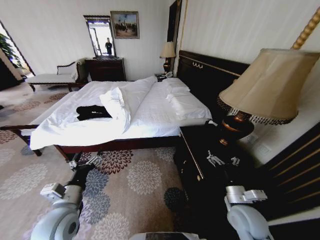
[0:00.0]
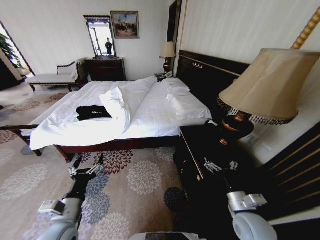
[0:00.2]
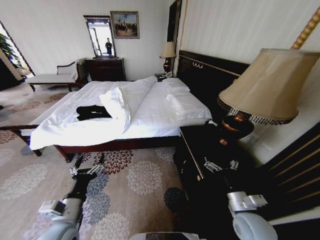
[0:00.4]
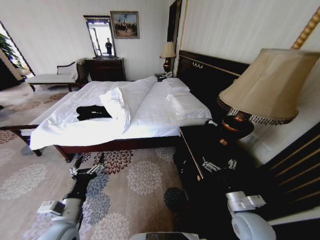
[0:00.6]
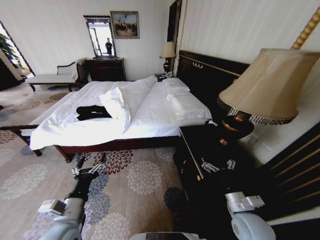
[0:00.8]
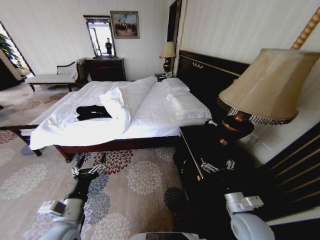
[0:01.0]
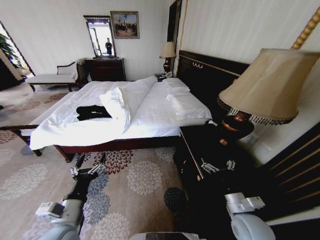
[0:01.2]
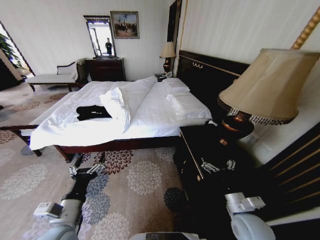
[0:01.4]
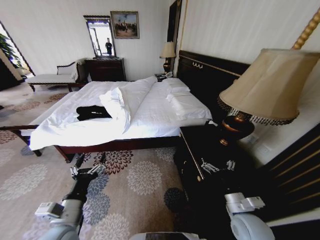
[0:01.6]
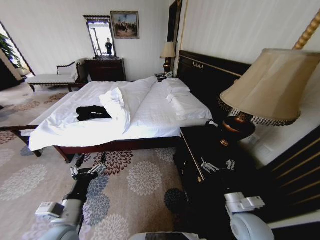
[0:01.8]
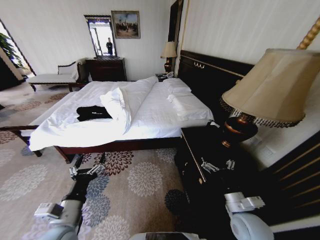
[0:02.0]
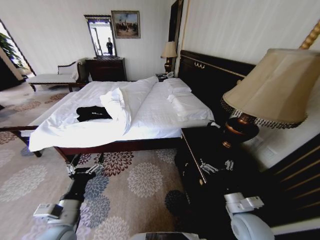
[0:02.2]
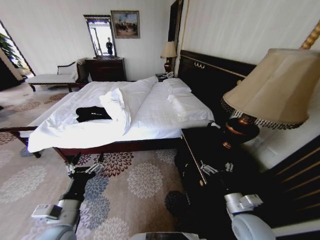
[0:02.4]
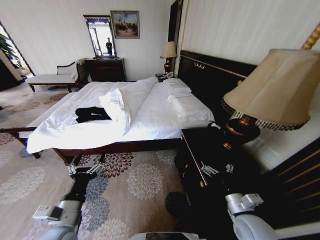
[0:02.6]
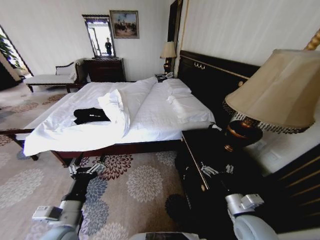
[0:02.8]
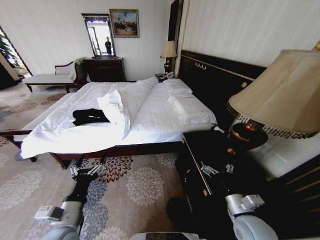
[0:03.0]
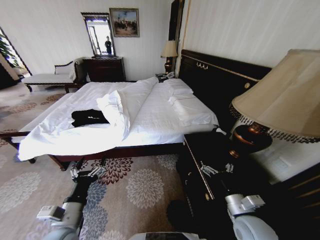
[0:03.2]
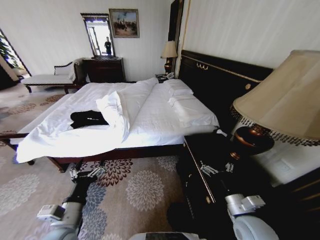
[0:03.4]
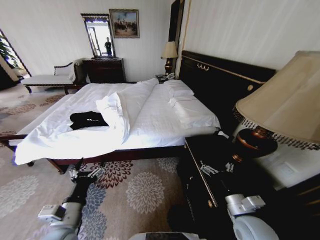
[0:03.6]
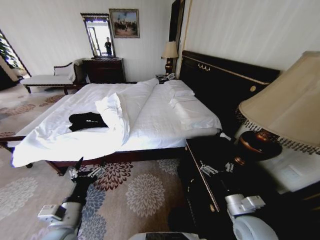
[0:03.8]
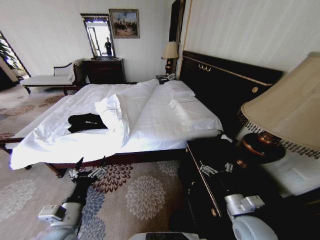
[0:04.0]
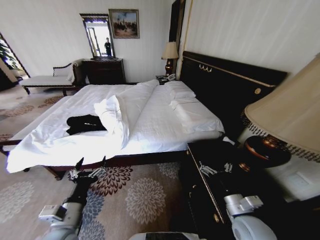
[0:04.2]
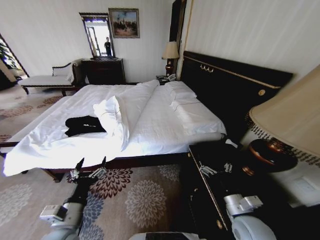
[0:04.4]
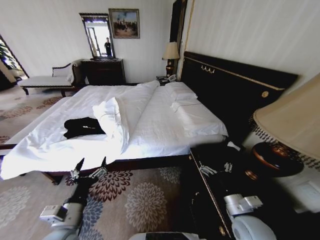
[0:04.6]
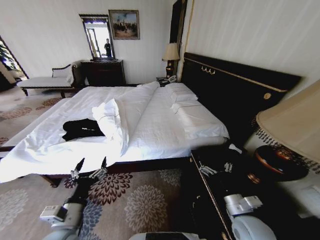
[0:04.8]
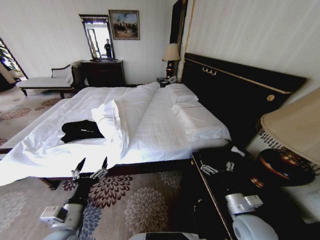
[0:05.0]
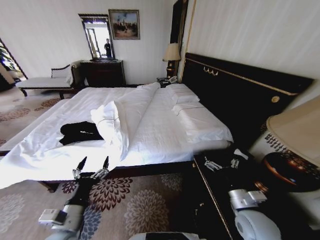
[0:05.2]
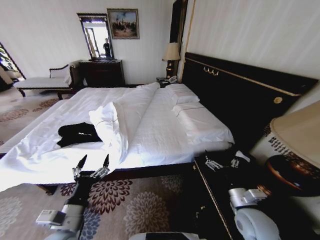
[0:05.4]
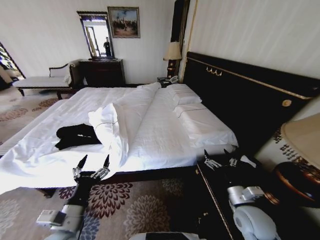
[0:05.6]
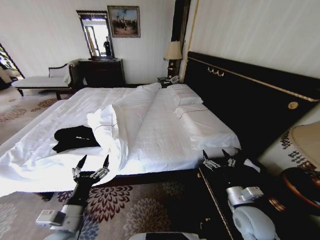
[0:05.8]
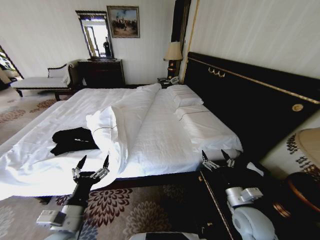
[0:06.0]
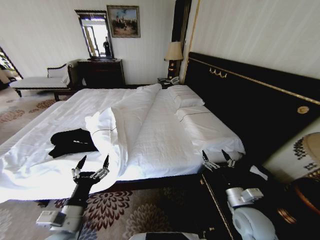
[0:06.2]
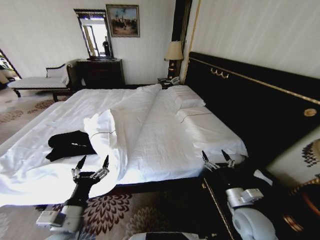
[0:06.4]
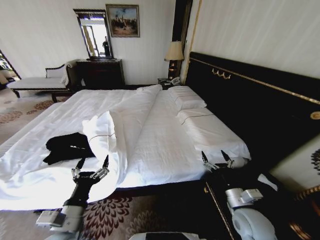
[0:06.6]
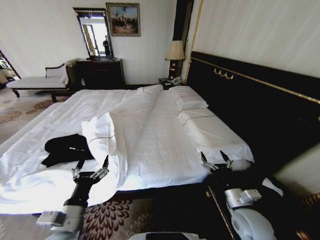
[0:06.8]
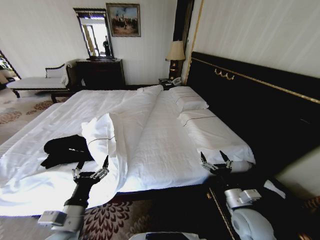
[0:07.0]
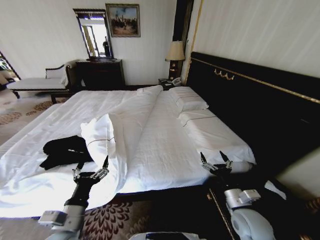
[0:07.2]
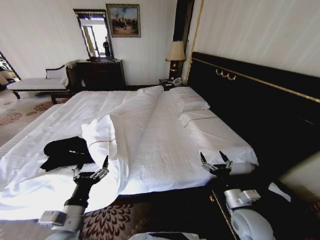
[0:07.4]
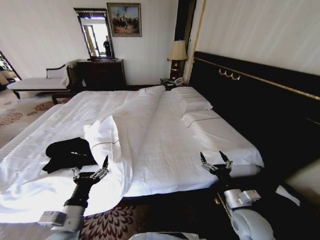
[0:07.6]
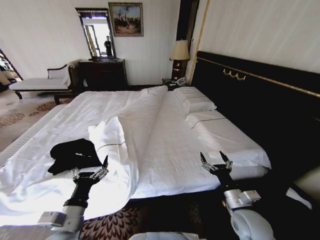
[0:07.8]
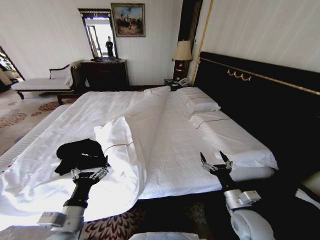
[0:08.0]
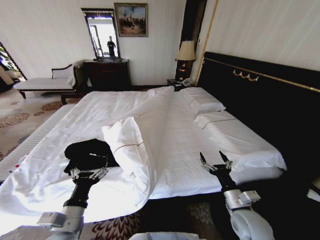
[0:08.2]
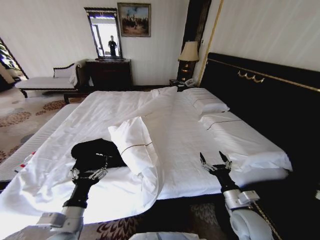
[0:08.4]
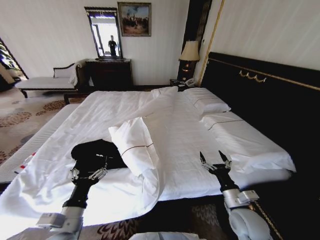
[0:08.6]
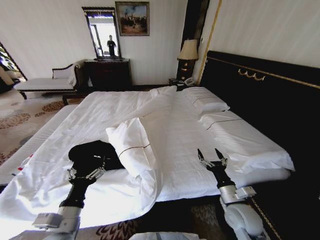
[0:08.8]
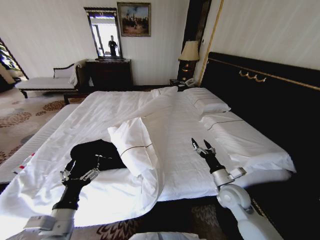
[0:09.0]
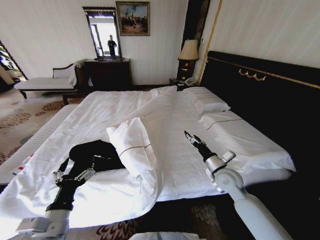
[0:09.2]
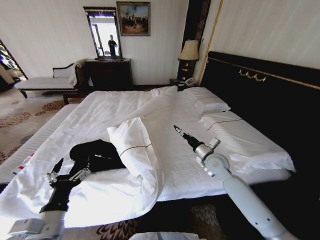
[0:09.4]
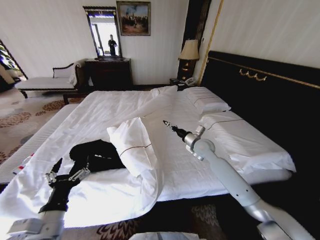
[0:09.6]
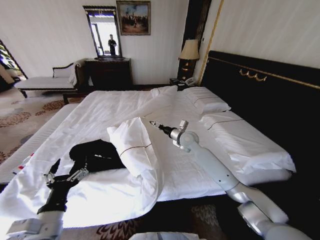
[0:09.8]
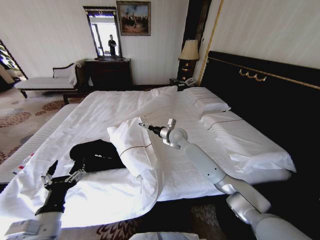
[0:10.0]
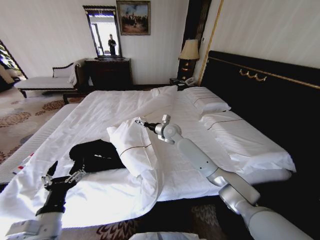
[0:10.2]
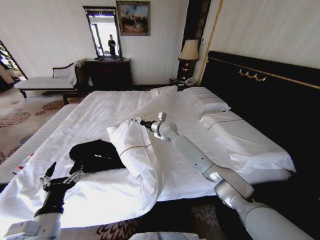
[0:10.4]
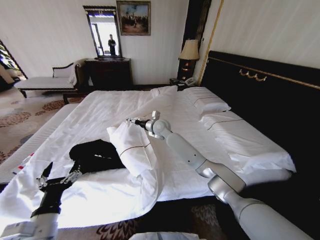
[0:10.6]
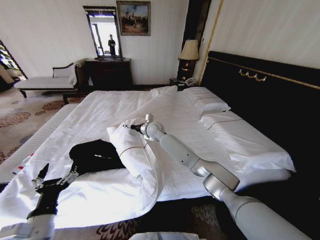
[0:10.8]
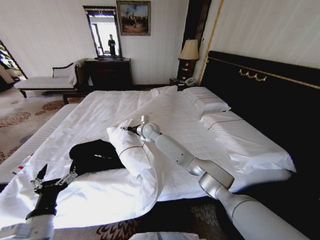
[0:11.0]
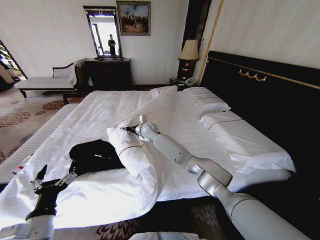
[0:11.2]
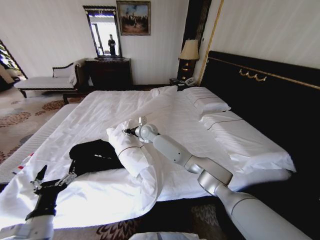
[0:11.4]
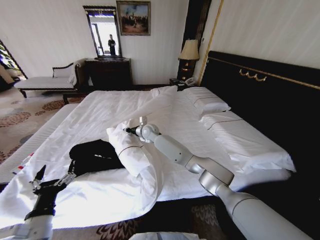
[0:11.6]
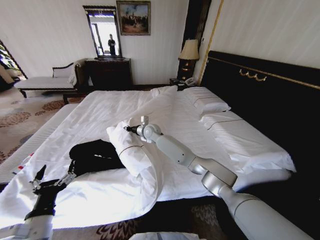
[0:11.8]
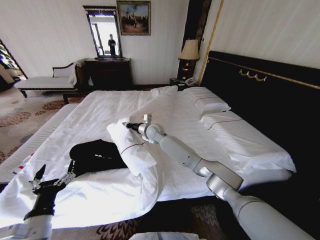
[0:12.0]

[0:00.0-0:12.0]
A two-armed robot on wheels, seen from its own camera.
Task of the whole recording: Fold the clothes on the bed.
0:07.6 to 0:09.0: The right gripper travels forward by roughly 10 cm.
0:09.0 to 0:10.4: The right gripper heads forward and to the left, covering some 35 cm.
0:10.4 to 0:12.0: The right gripper heads to the left, covering roughly 5 cm, and closes up.

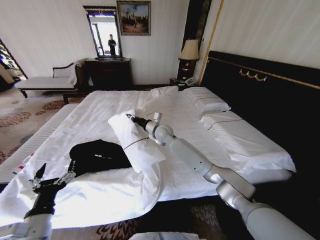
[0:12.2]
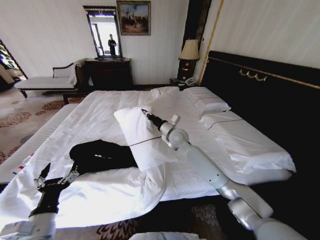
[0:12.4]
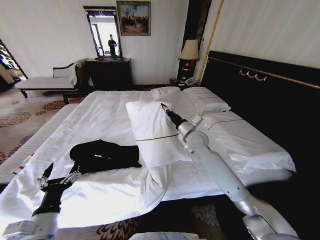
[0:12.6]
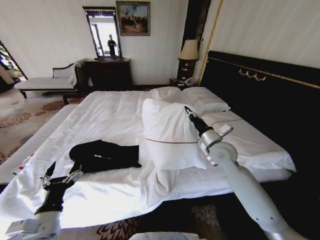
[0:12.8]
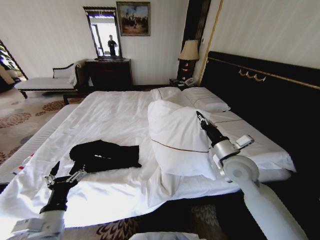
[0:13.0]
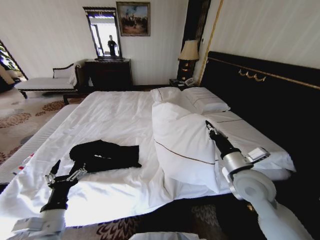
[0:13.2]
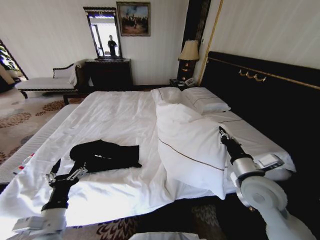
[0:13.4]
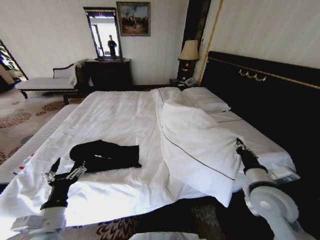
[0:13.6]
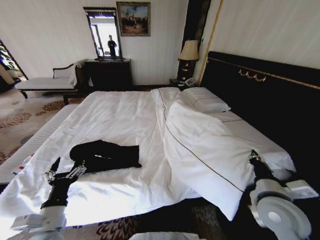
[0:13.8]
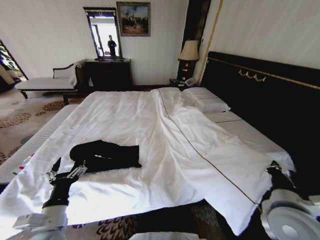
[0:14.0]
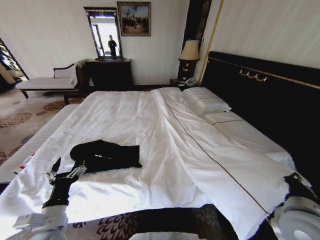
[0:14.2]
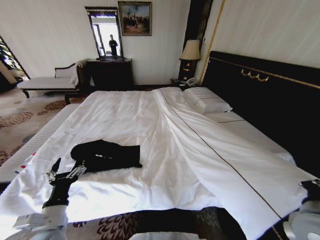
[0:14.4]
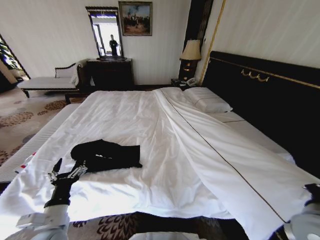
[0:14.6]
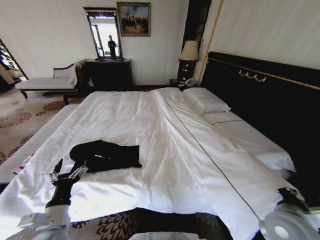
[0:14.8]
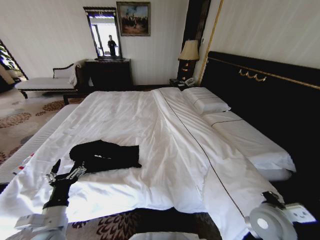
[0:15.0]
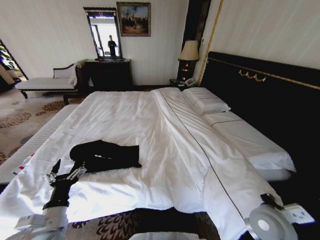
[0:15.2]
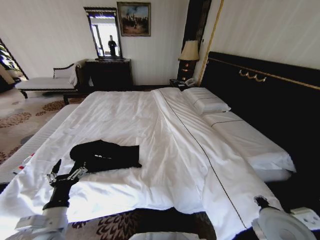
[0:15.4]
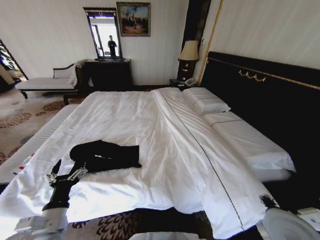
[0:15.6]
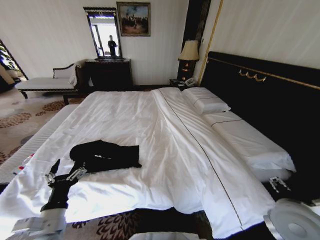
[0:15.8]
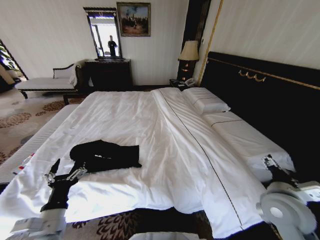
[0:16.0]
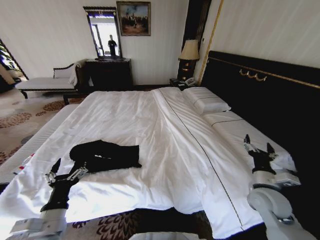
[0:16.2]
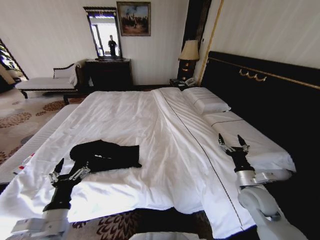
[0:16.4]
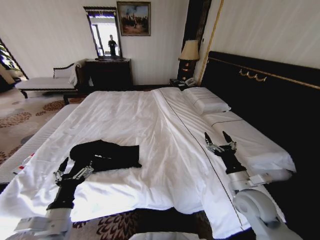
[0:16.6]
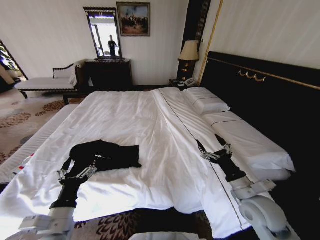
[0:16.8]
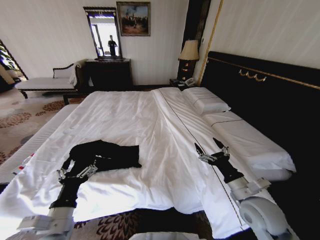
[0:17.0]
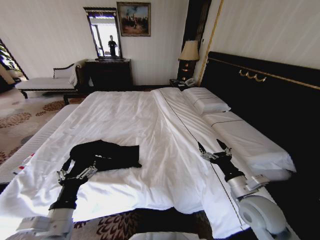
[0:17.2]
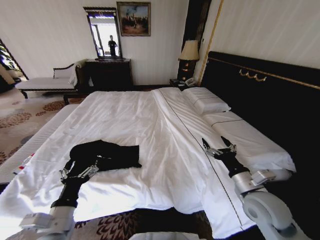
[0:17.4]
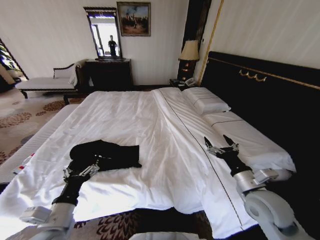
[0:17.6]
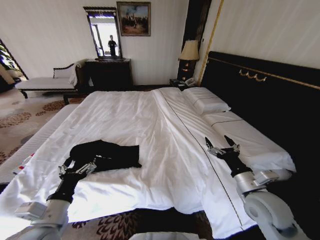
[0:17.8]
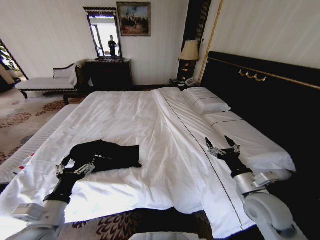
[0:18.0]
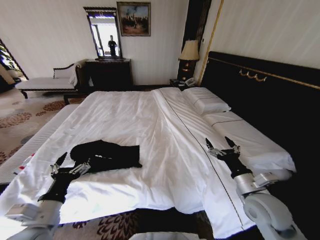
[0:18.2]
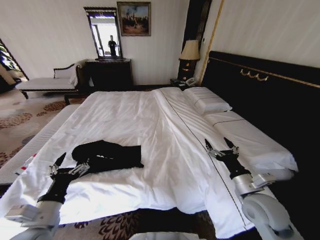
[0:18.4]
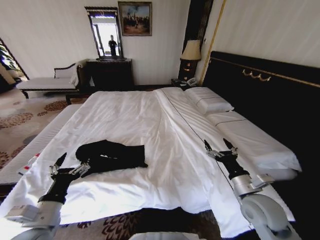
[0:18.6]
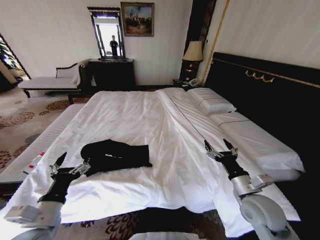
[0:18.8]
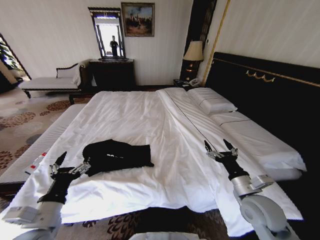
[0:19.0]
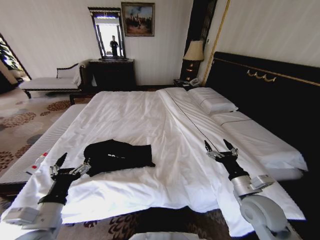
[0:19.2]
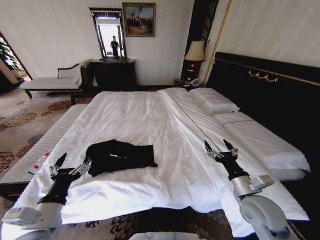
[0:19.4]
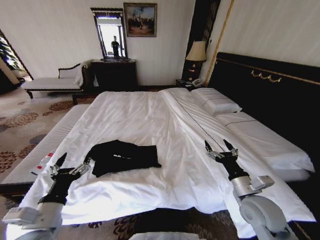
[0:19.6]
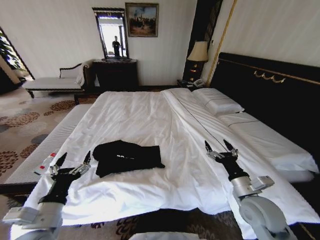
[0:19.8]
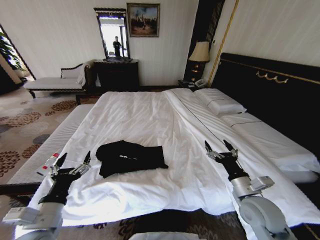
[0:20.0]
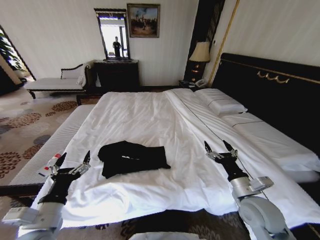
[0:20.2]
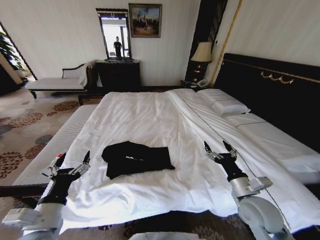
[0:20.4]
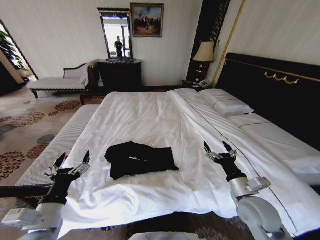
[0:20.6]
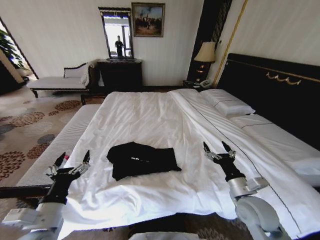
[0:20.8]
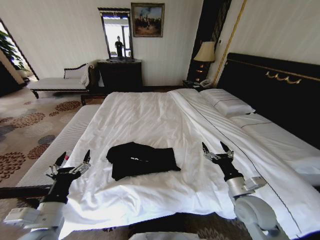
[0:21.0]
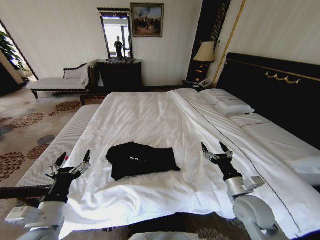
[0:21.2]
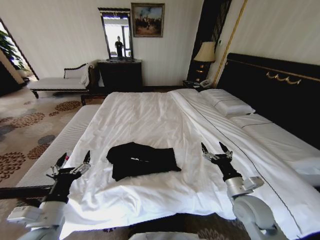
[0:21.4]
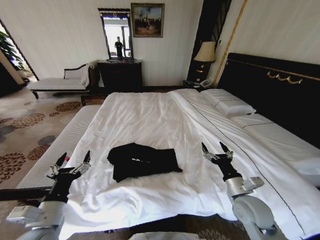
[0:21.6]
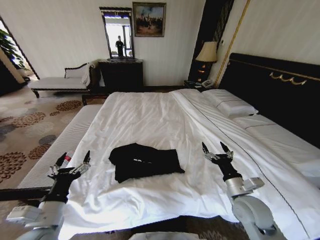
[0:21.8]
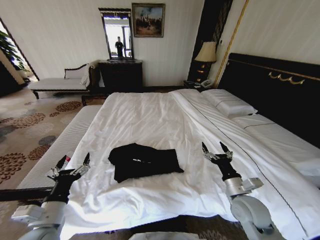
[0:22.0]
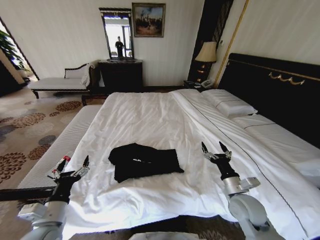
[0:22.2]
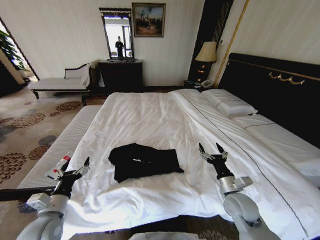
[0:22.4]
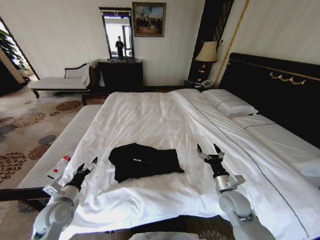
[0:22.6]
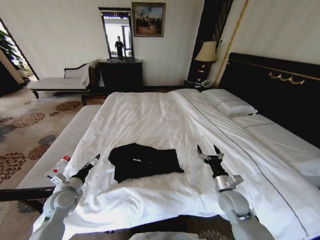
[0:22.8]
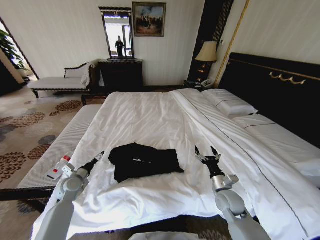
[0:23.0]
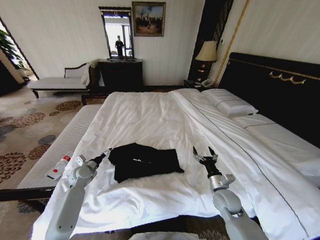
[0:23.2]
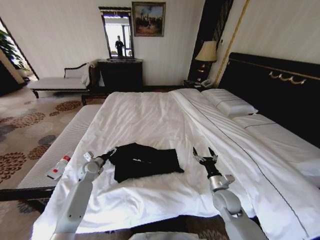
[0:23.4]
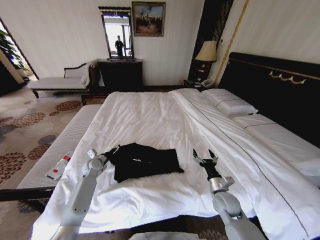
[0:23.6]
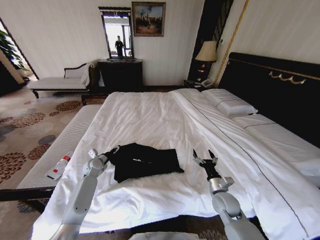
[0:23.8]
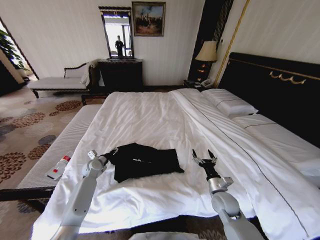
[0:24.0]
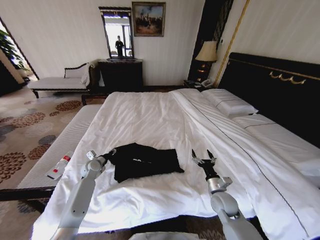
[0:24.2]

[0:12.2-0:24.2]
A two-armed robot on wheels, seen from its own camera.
Task of the whole recording: Fold the clothes on the bed.
0:12.2 to 0:13.8: The right gripper is displaced backward and to the right by roughly 50 cm.
0:13.8 to 0:15.2: The right gripper heads downward, covering roughly 5 cm.
0:15.2 to 0:16.6: The right gripper is displaced forward by some 5 cm, travels upward and back again, about 10 cm each way, and opens its fingers.
0:16.6 to 0:18.2: There are only small adjustments of the grippers.
0:21.2 to 0:22.6: The left gripper travels downward, forward and to the left by about 15 cm, while the right gripper travels downward by approximately 5 cm.
0:22.6 to 0:24.2: The right gripper is displaced downward by roughly 5 cm; the left gripper heads forward, covering roughly 25 cm, and closes up.
